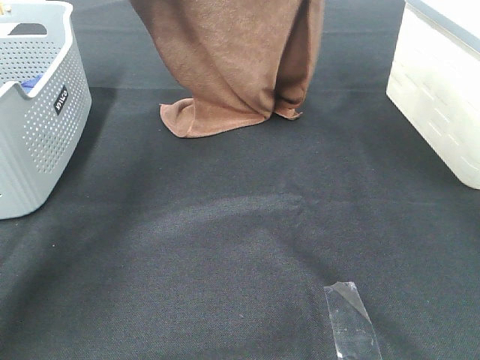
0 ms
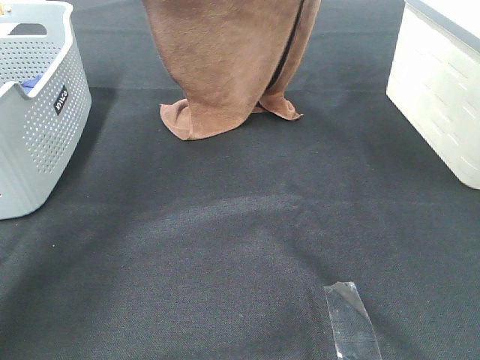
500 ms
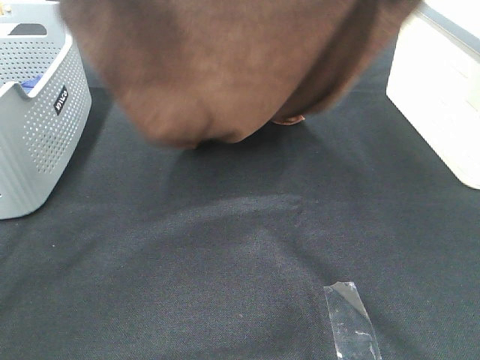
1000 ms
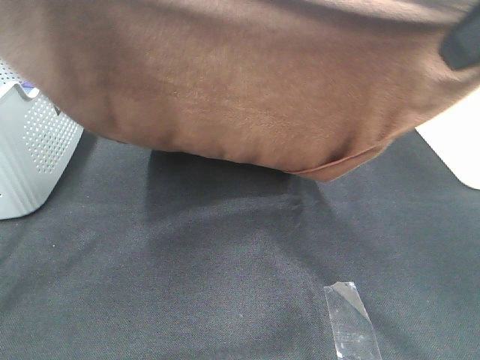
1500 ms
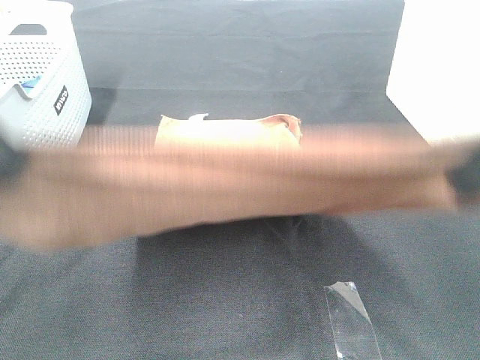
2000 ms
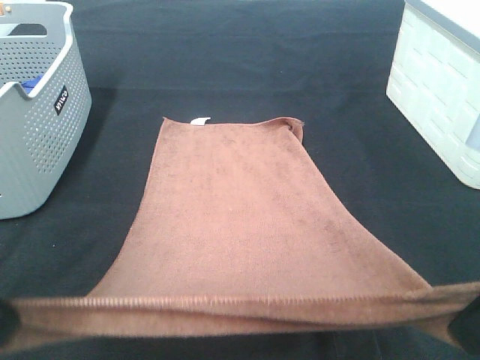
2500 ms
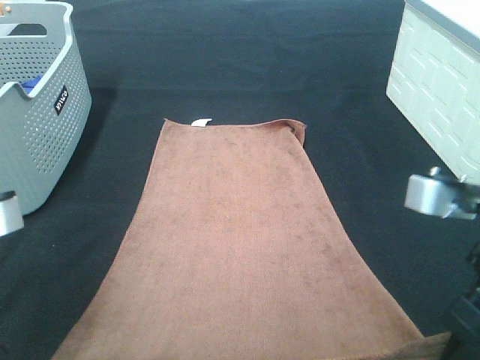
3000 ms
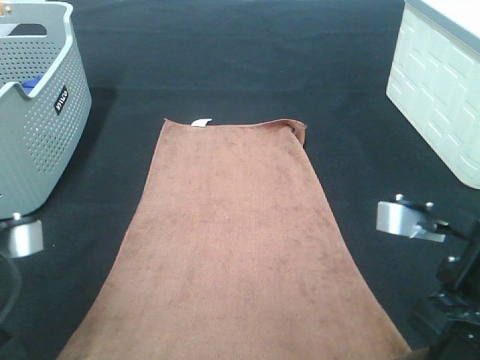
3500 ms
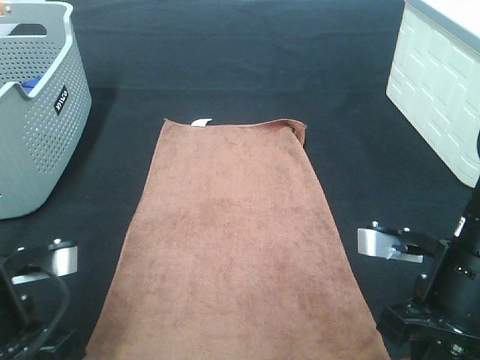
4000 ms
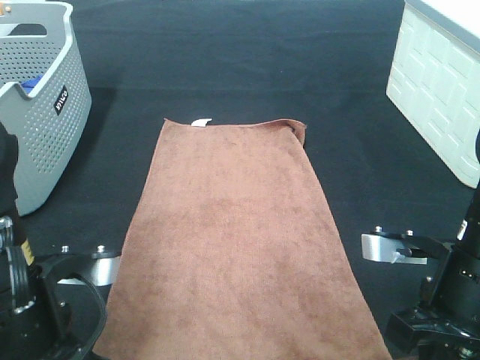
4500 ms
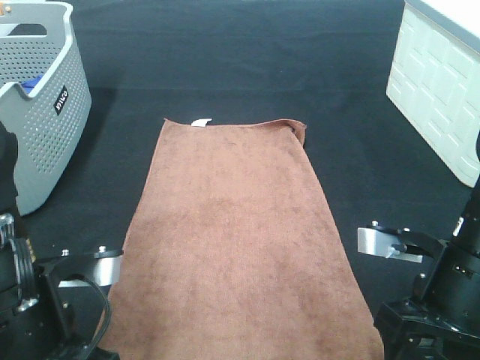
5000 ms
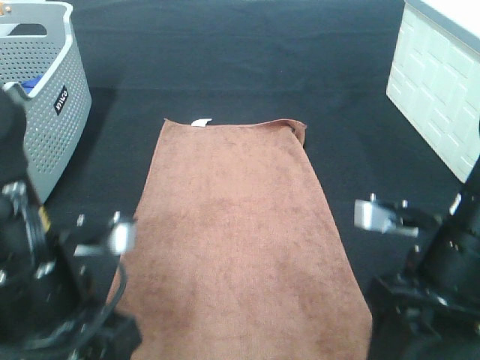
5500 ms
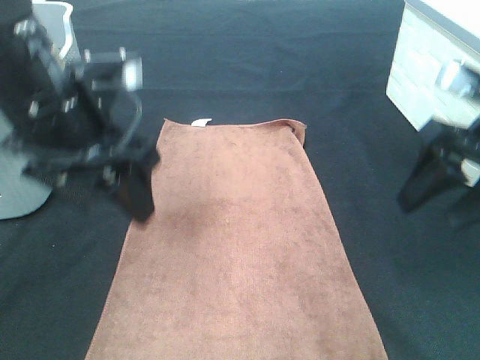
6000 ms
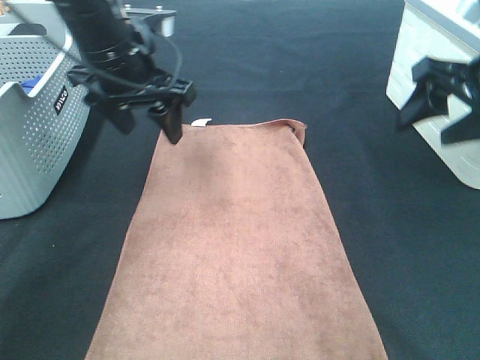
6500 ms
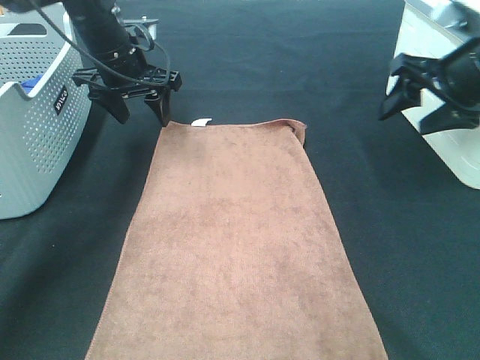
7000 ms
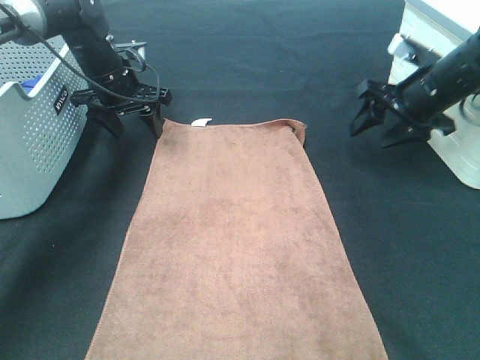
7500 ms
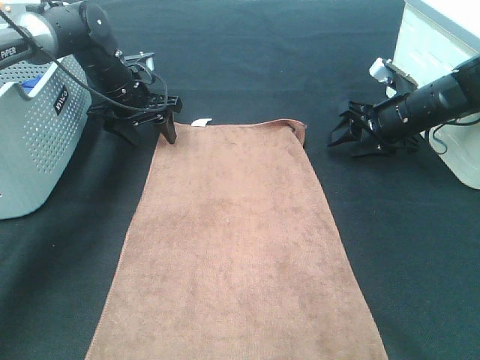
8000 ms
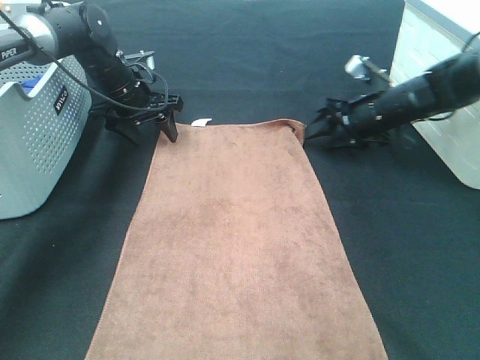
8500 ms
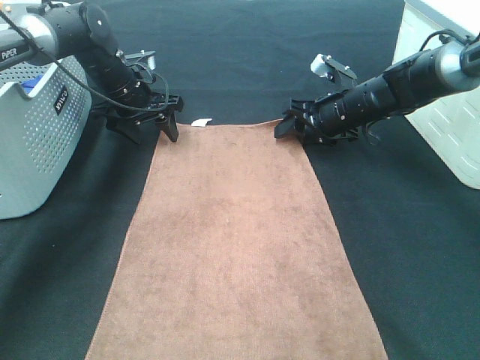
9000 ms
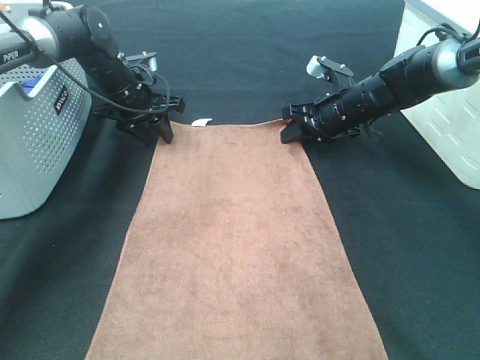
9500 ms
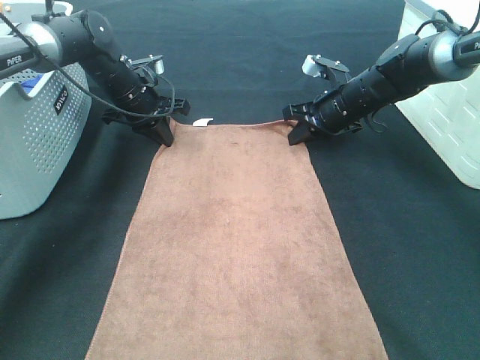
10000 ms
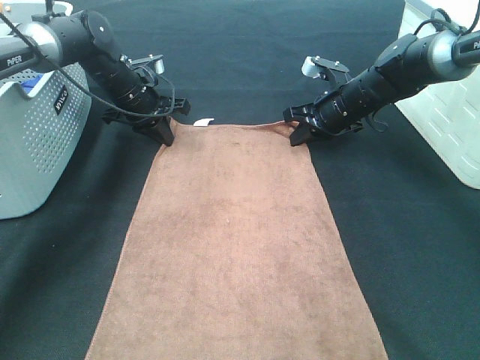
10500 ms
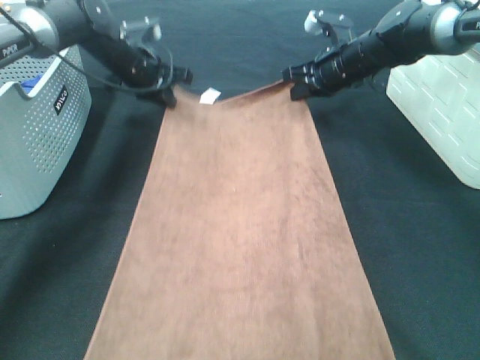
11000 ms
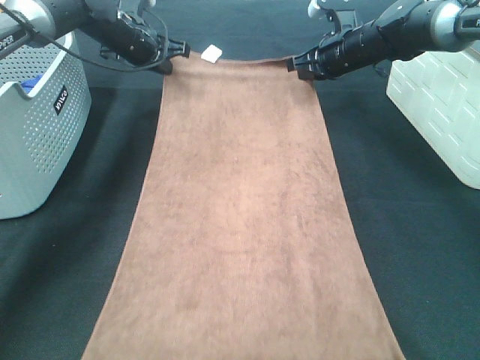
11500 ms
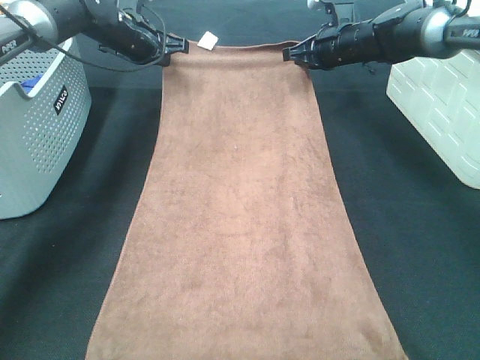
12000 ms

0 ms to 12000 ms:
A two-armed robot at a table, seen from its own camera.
Task of the whole recording: Remove the towel and place it.
Step, 1000 ms to 7000 ms: Left hand:adjust the brown towel.
Step, 1000 ms to 10000 ms: Right hand:adjust the brown towel.
0 ms to 2000 ms: Both grippers move backward, about 30 cm.
2000 ms to 4000 ms: Both grippers travel together downward, approximately 20 cm.
4000 ms to 6000 ms: The right gripper moves forward, upward and to the right, about 15 cm, and opens its fingers, while the left gripper travels forward and upward by approximately 15 cm, and opens its fingers.
6000 ms to 8000 ms: Both grippers move forward and downward, roughly 25 cm.
8000 ms to 10000 ms: The left gripper closes up. The right gripper is displaced to the left by some 10 cm, and closes.
10000 ms to 12000 ms: The right gripper heads forward and upward, covering approximately 10 cm, while the left gripper heads upward and forward, covering about 10 cm.

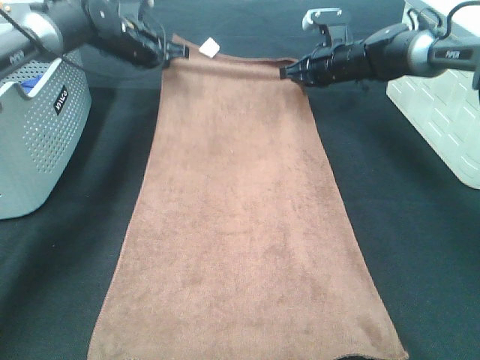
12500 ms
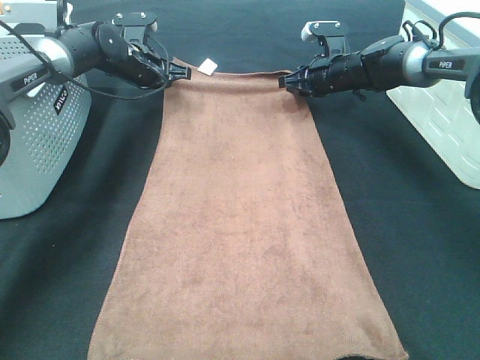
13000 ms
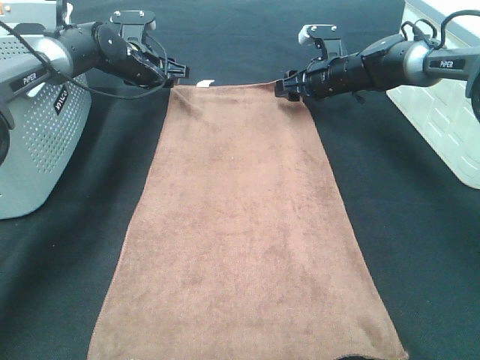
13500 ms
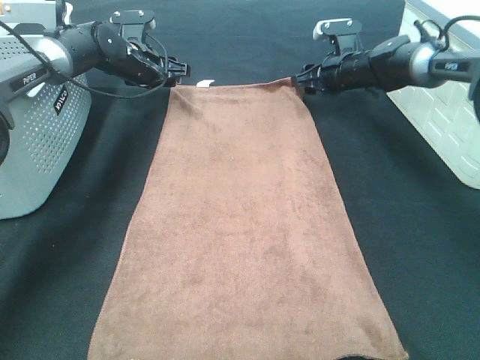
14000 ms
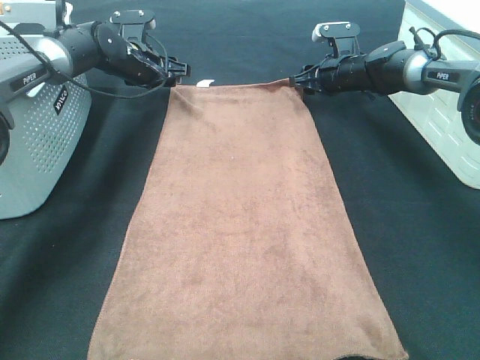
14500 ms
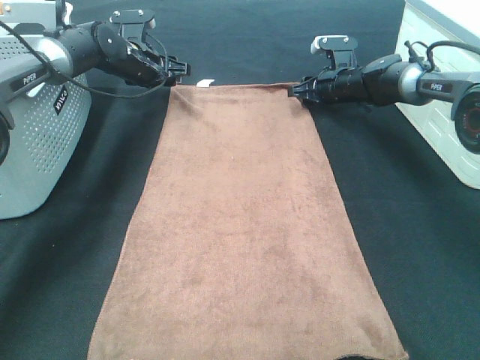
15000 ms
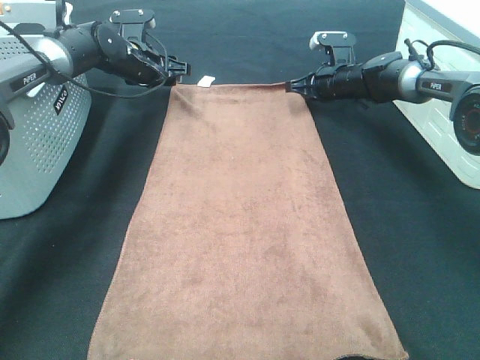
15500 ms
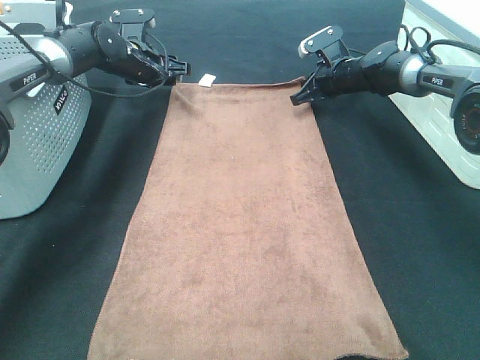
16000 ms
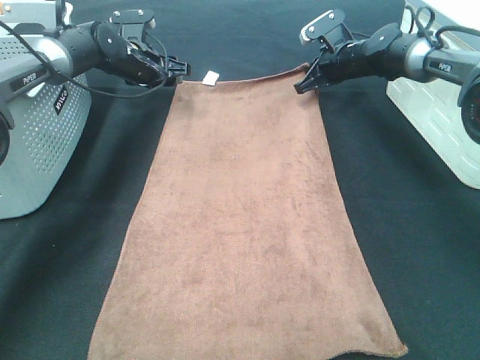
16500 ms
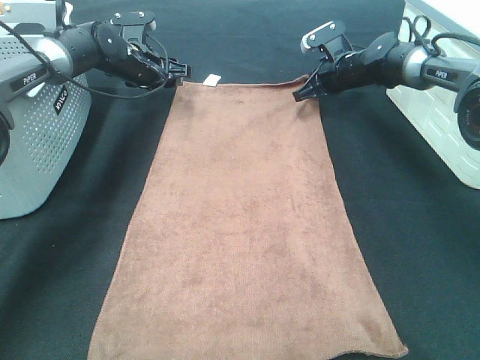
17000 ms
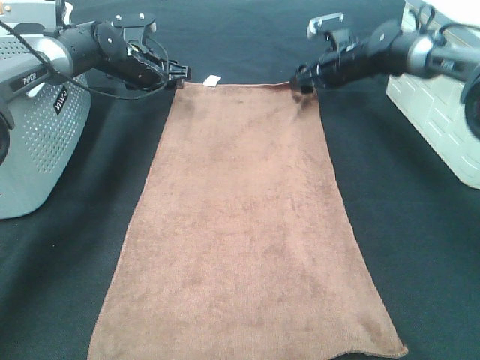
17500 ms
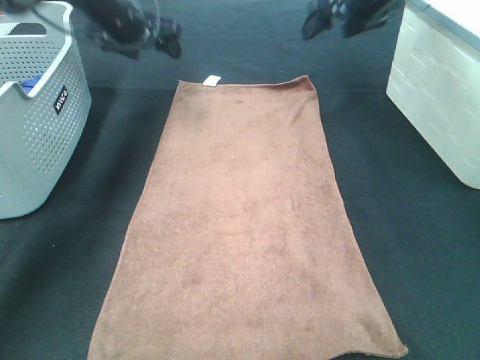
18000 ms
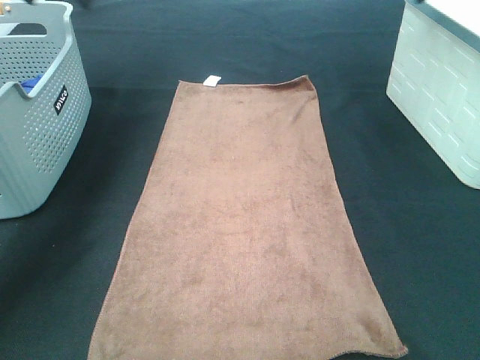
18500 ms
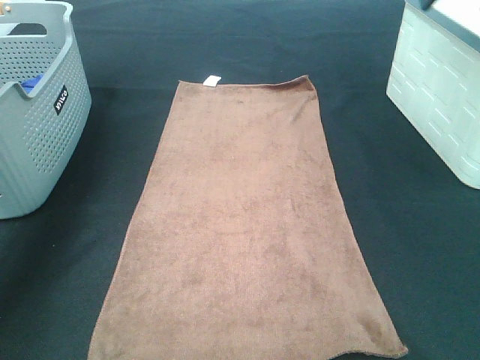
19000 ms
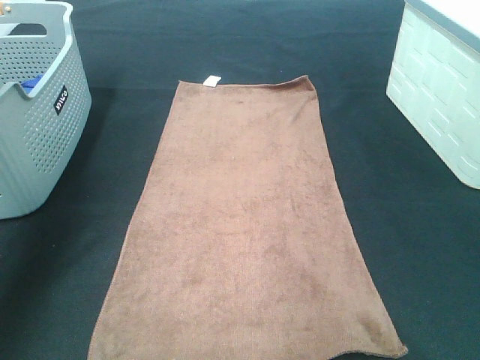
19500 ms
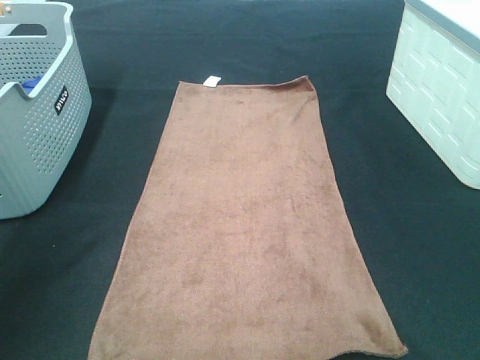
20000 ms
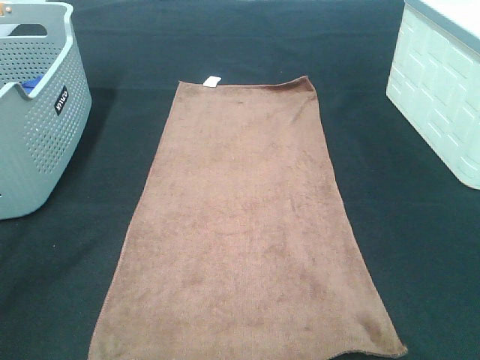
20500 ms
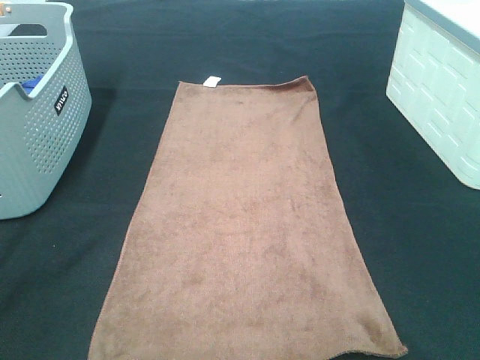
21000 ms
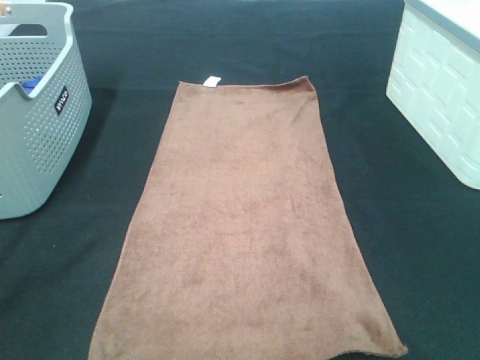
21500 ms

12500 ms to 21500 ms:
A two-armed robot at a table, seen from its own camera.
Task of the whole recording: Remove the towel and place it.
12500 ms to 14500 ms: The right gripper opens up. The left gripper opens up.
14500 ms to 17000 ms: The right gripper closes up.
17000 ms to 19500 ms: The right gripper goes roughly 50 cm backward and upward, and opens. The left gripper goes about 40 cm backward, upward and to the left.
19500 ms to 21500 ms: The left gripper shifts approximately 30 cm backward.

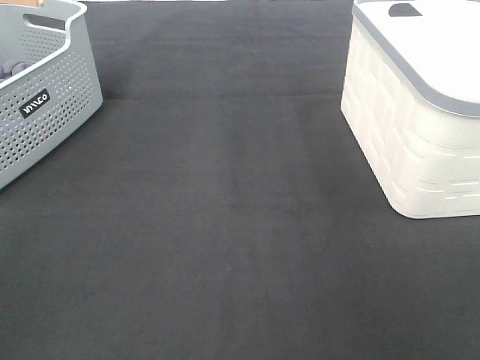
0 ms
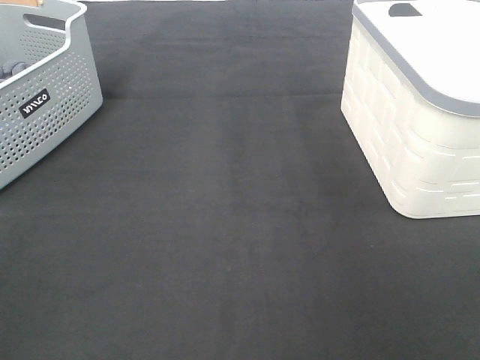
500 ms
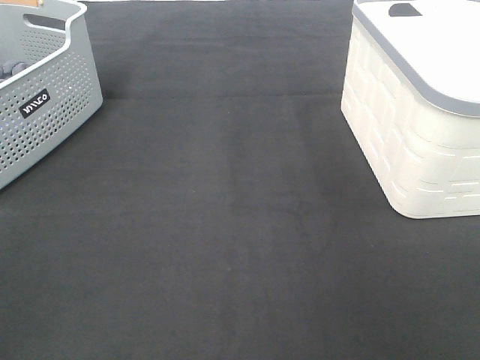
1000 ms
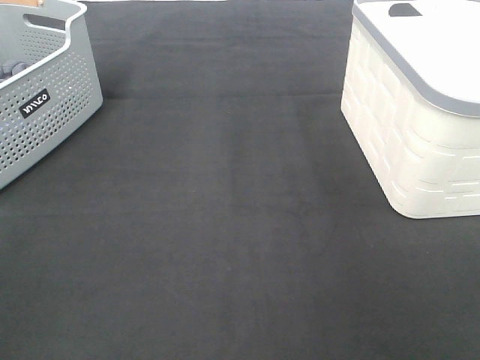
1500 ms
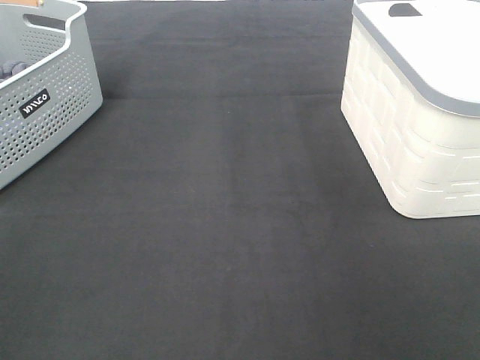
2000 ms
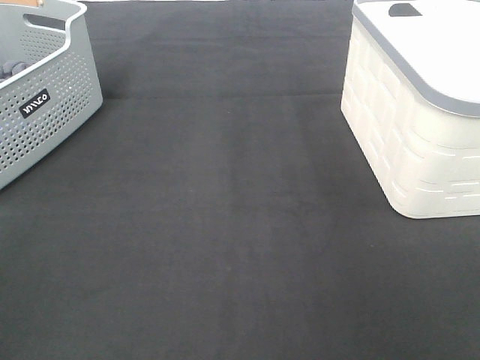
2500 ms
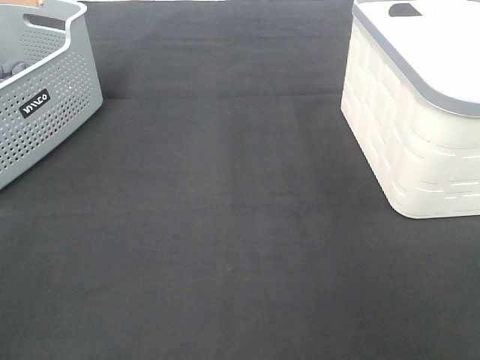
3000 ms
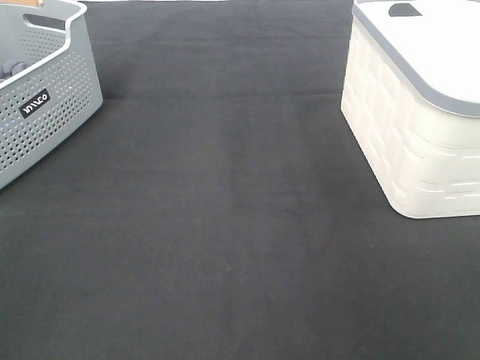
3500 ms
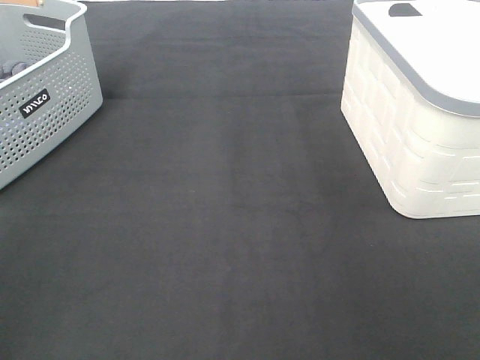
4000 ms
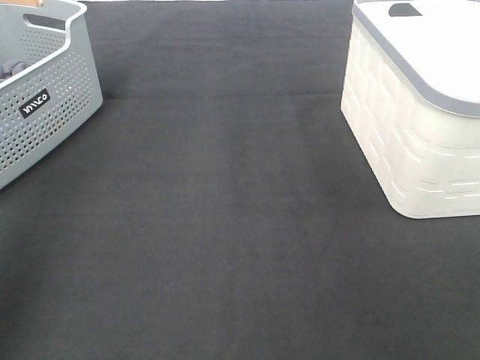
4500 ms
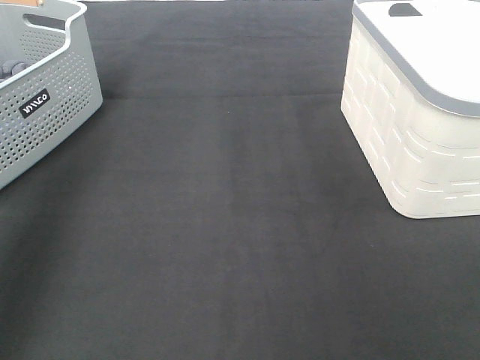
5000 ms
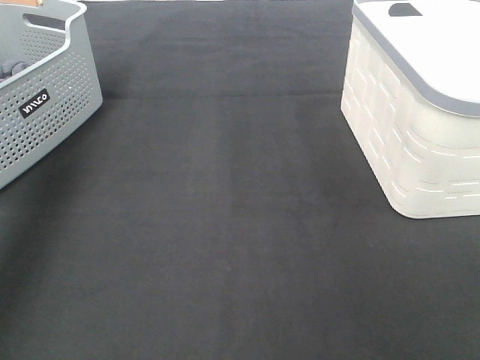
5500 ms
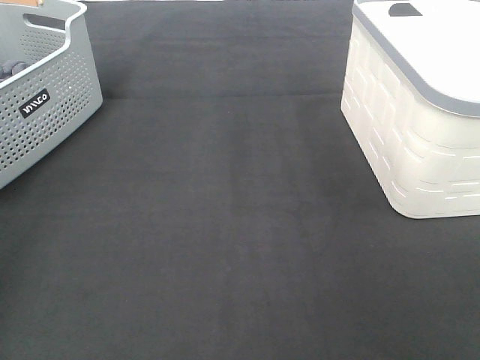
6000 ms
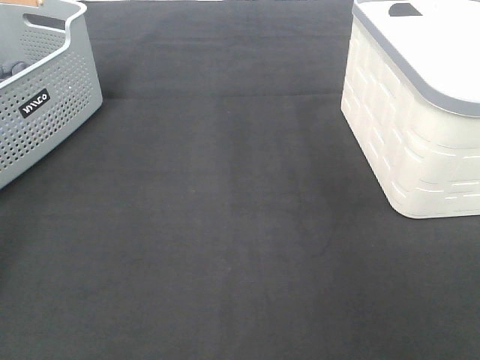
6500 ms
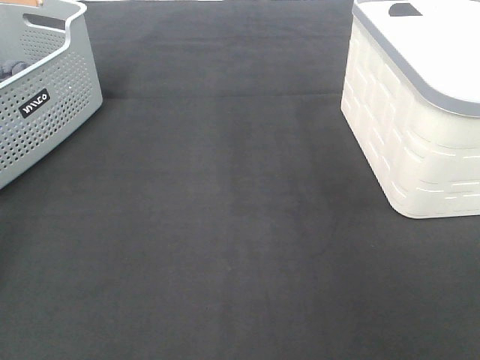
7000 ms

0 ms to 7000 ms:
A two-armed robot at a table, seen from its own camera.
Task of the whole recording: Remove the towel and place it.
0 ms to 3500 ms: The two grippers keep their place.
3500 ms to 5000 ms: The left gripper shifts roughly 30 cm forward and upward.
5000 ms to 7000 ms: The left gripper shifts approximately 30 cm forward, downward and to the left.
